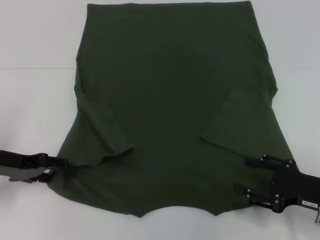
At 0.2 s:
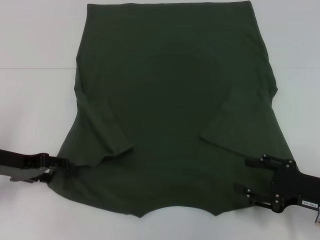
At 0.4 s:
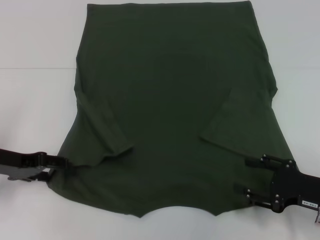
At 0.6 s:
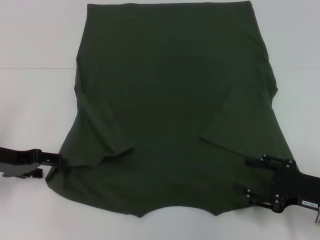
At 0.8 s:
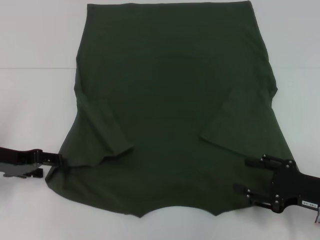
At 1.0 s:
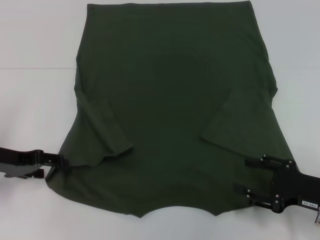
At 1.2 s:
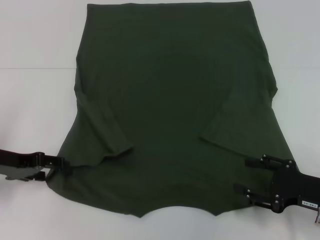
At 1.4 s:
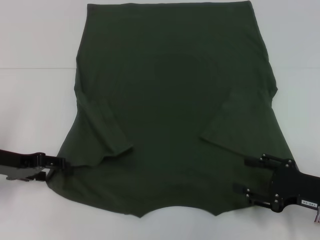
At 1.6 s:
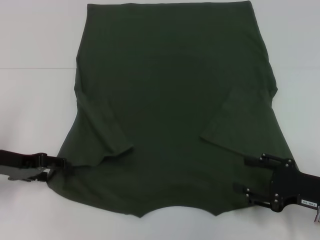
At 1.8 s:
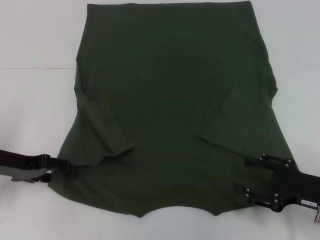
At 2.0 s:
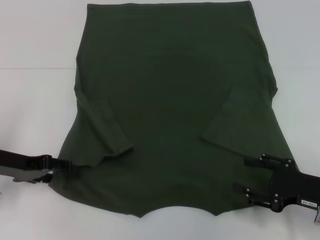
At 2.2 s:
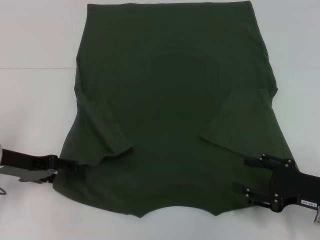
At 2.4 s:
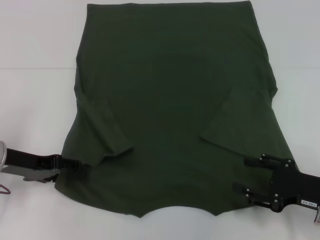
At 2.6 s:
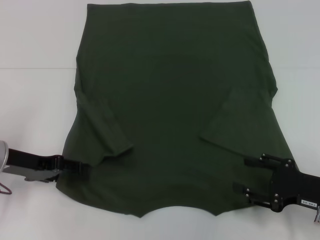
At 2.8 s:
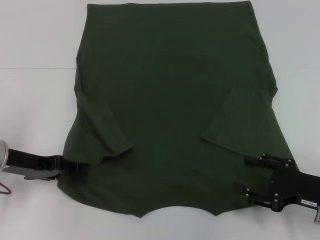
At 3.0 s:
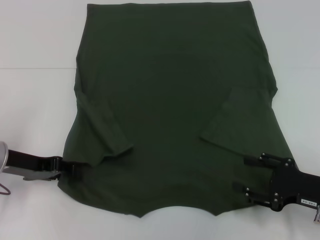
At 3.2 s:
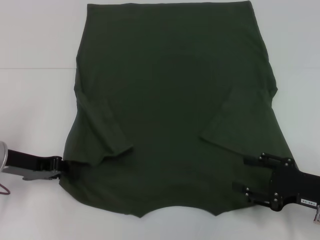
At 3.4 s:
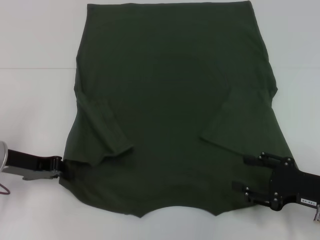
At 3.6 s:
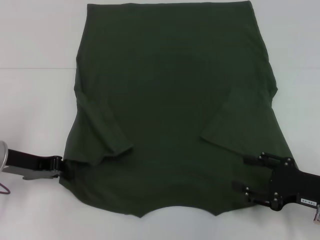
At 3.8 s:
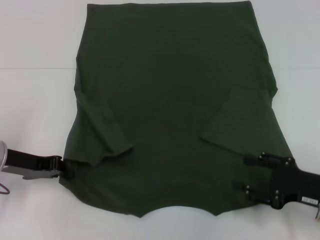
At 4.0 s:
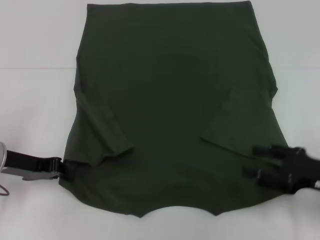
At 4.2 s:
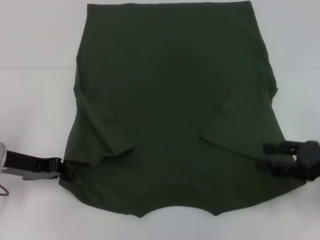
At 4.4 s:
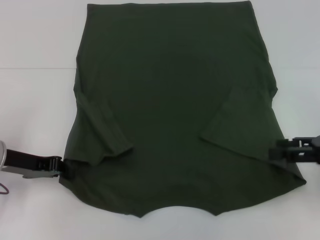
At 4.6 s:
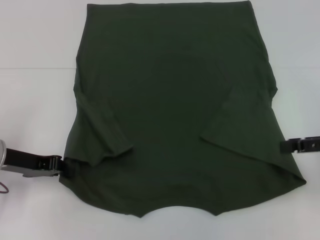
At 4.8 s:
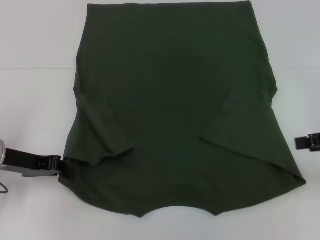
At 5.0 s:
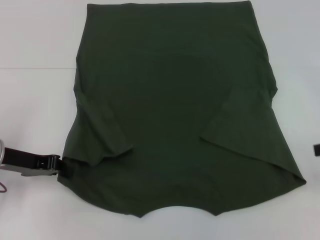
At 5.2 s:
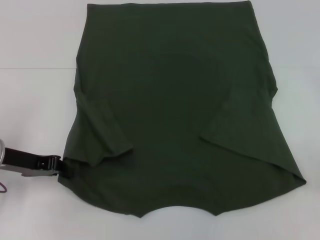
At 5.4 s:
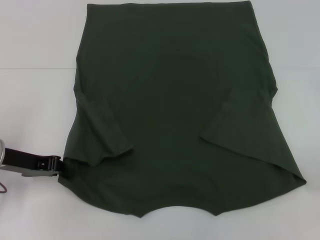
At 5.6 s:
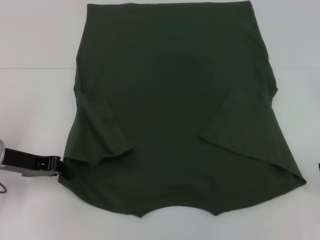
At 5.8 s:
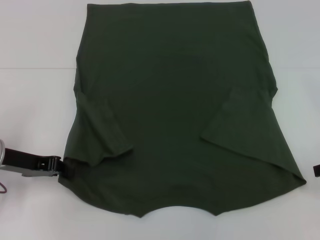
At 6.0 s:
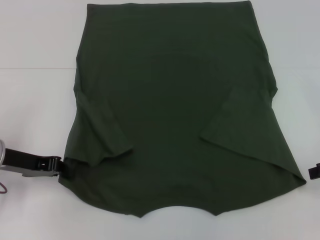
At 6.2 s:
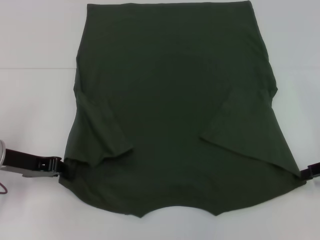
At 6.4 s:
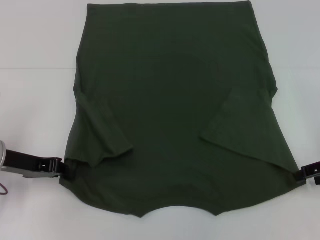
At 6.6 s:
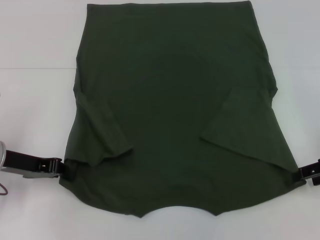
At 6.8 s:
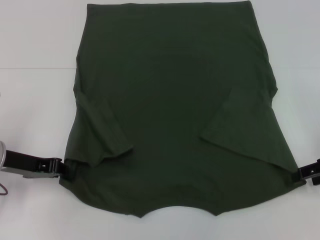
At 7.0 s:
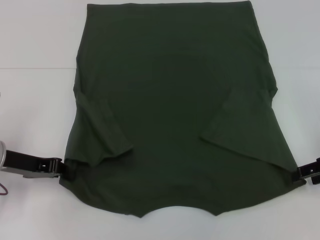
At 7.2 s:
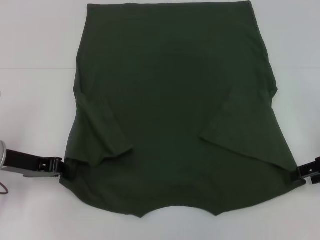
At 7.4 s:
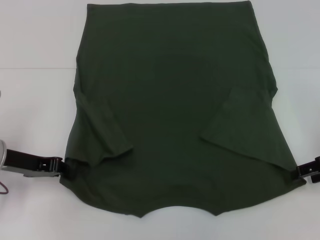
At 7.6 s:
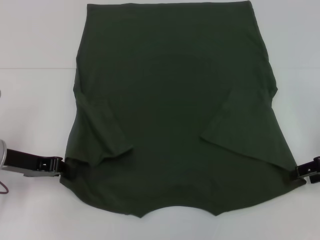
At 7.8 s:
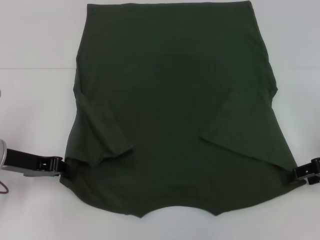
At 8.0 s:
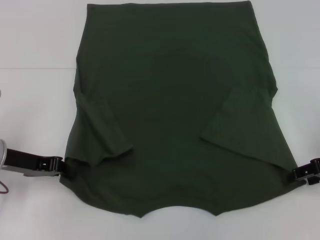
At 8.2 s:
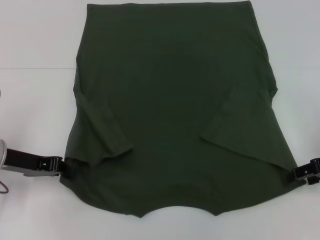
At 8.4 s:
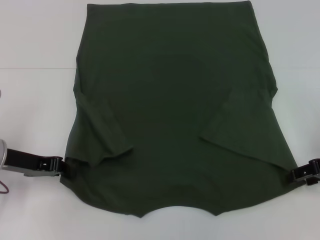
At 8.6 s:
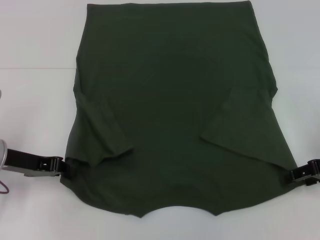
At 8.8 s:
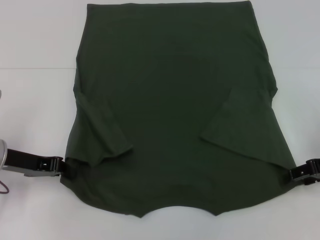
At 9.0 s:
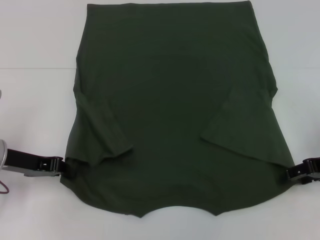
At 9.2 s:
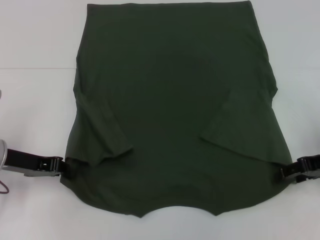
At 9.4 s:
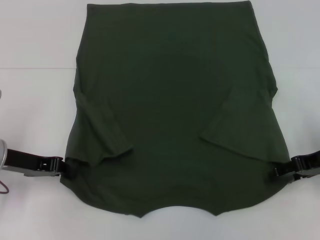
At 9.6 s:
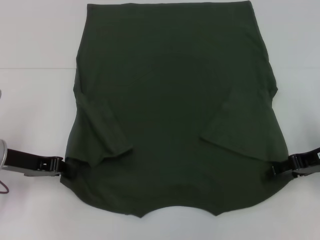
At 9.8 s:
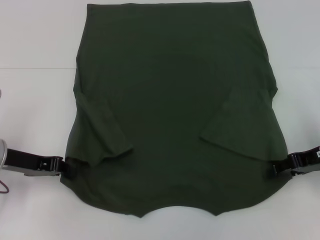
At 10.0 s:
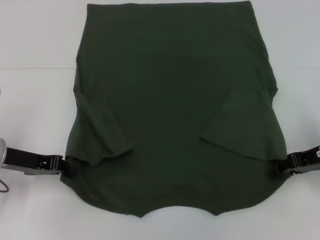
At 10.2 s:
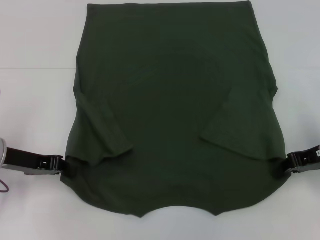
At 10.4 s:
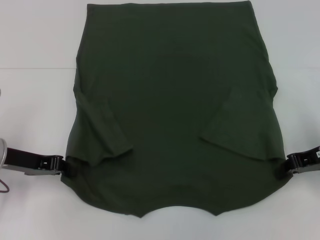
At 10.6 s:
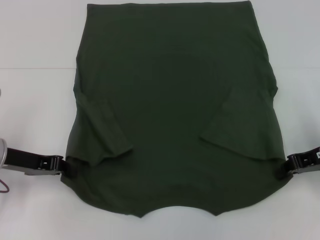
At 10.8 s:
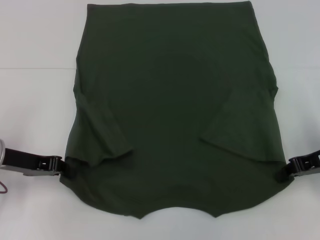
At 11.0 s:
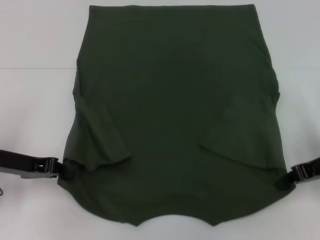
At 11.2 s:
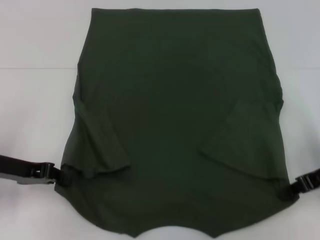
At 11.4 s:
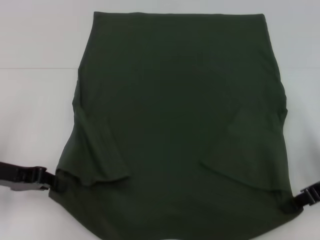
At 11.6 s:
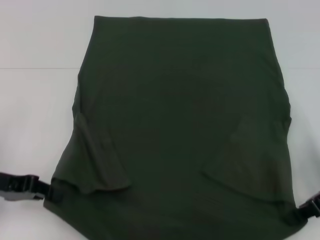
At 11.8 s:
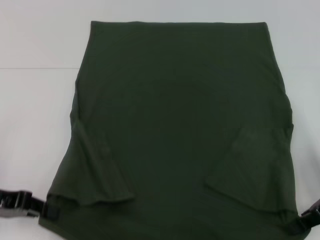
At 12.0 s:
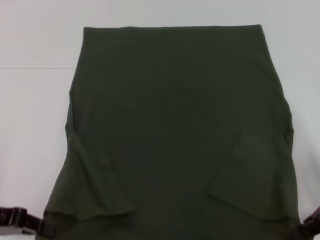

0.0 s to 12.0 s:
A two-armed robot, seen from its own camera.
Step, 0.0 to 3.4 s: Grab the bottom left corner with your left hand.
Step, 3.6 to 10.4 s: Grab the bottom right corner with your right hand.
0.0 to 1.6 s: Both grippers stay put.
1.6 to 3.0 s: The grippers stay close to where they were, moving slightly.
3.0 to 4.4 s: The right gripper is displaced upward by roughly 10 cm. The left gripper closes up.
6.0 to 7.6 s: The grippers make only small movements.
9.0 to 10.4 s: The right gripper closes.
10.4 to 12.0 s: The left gripper moves backward, roughly 10 cm.

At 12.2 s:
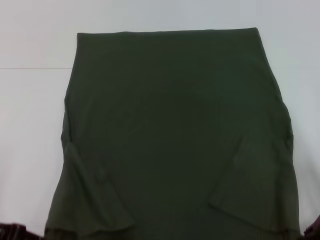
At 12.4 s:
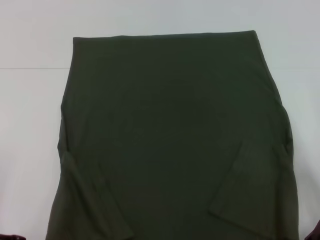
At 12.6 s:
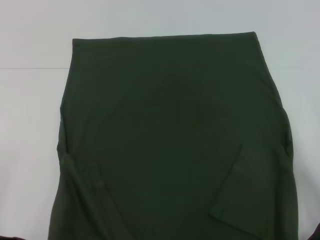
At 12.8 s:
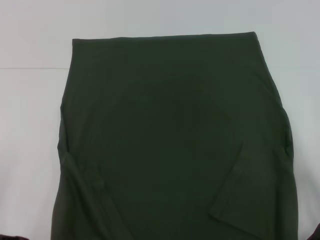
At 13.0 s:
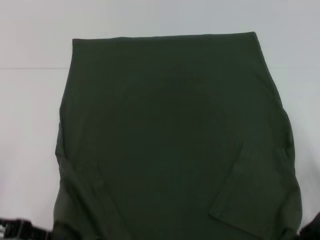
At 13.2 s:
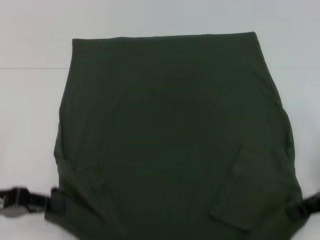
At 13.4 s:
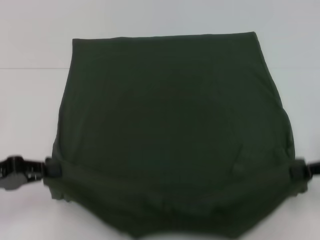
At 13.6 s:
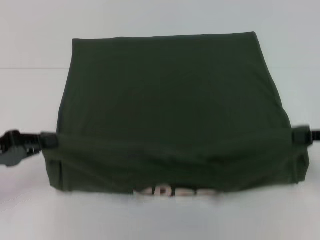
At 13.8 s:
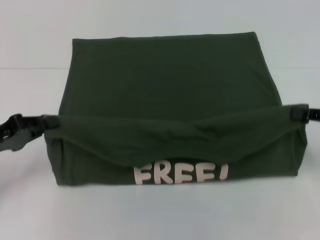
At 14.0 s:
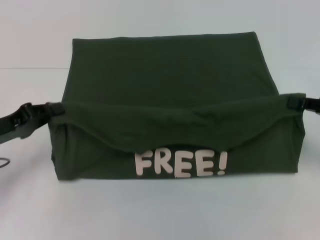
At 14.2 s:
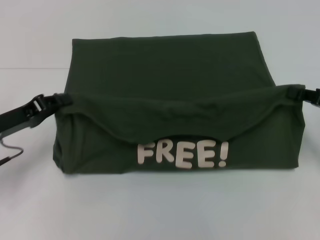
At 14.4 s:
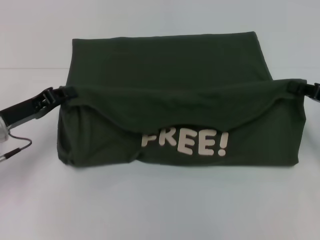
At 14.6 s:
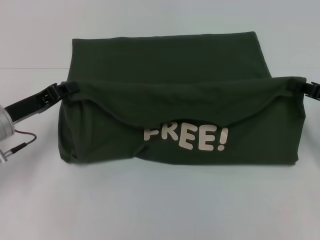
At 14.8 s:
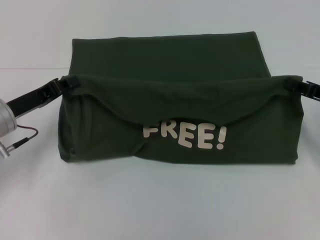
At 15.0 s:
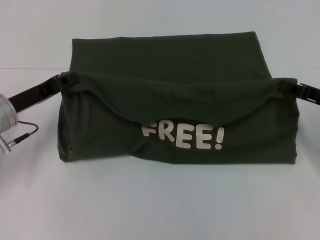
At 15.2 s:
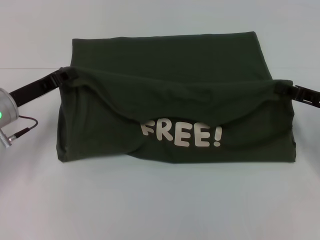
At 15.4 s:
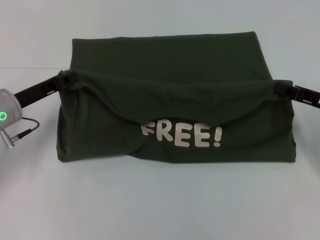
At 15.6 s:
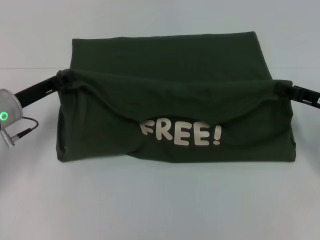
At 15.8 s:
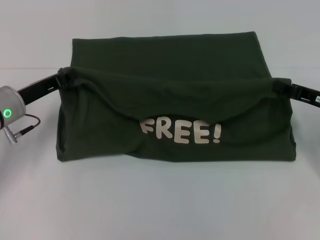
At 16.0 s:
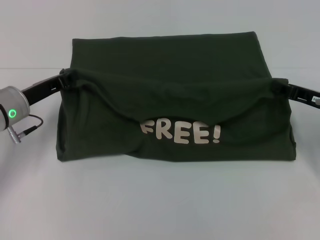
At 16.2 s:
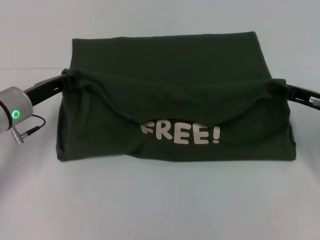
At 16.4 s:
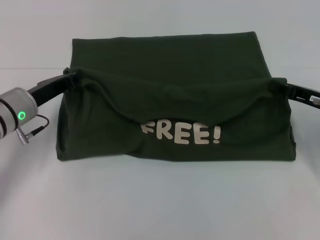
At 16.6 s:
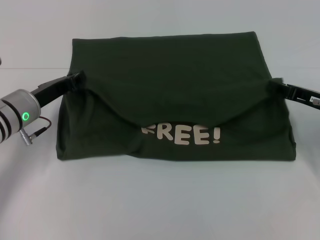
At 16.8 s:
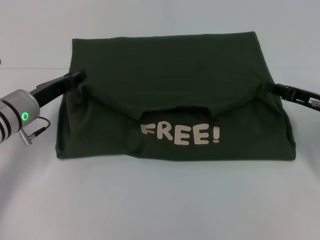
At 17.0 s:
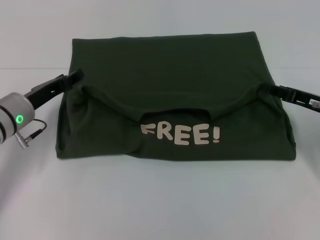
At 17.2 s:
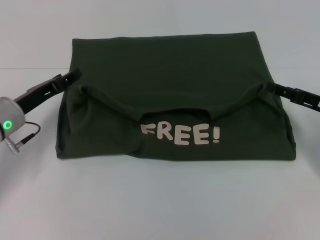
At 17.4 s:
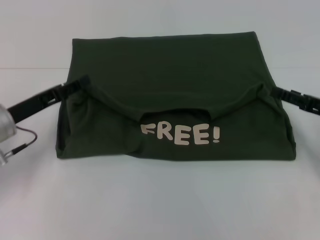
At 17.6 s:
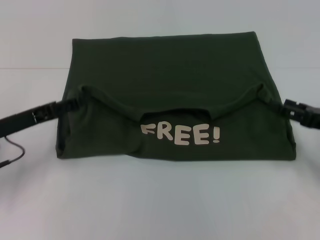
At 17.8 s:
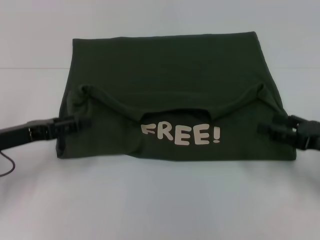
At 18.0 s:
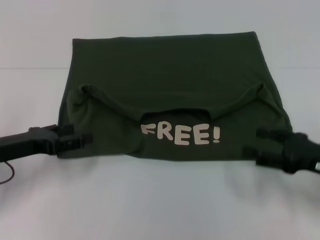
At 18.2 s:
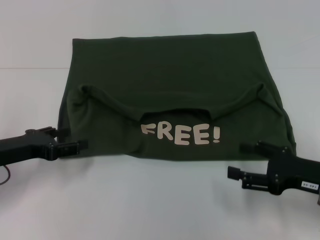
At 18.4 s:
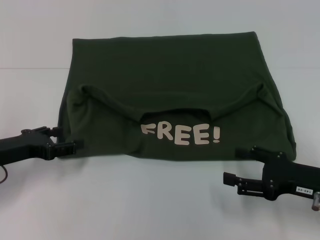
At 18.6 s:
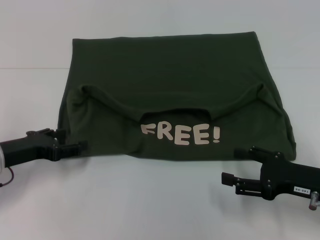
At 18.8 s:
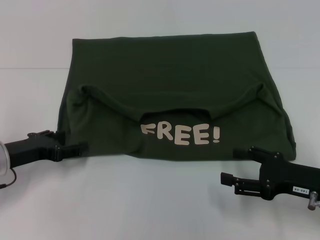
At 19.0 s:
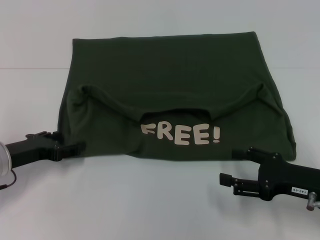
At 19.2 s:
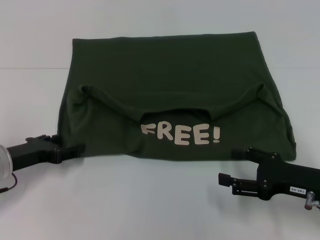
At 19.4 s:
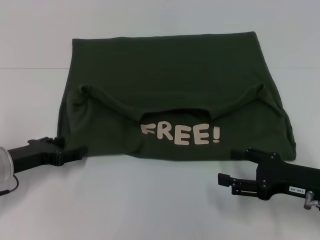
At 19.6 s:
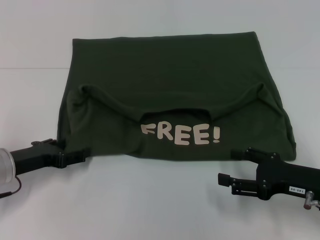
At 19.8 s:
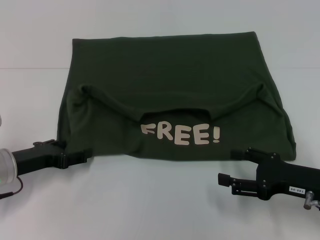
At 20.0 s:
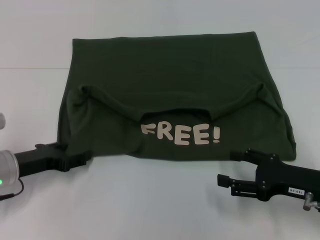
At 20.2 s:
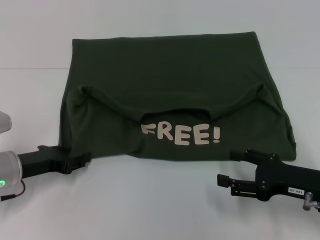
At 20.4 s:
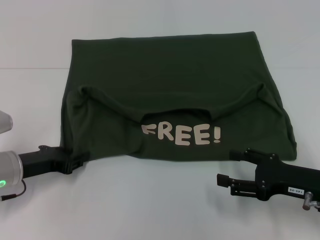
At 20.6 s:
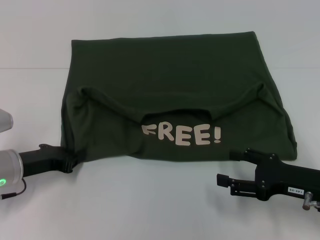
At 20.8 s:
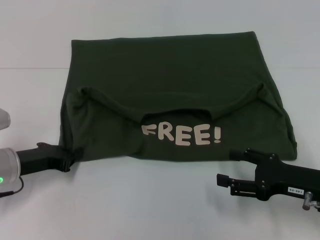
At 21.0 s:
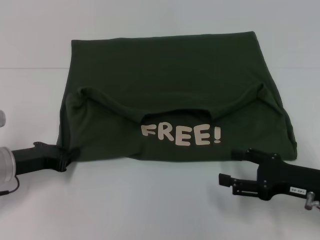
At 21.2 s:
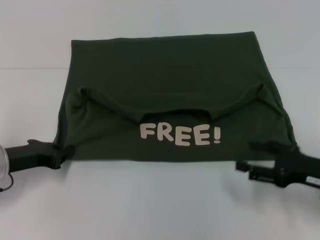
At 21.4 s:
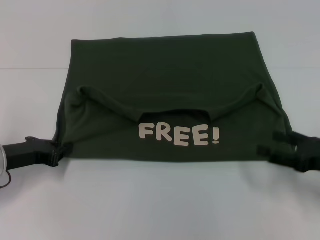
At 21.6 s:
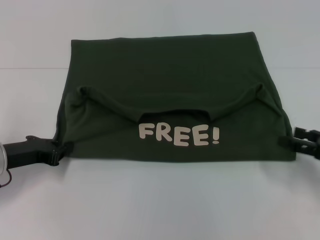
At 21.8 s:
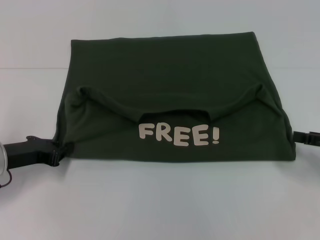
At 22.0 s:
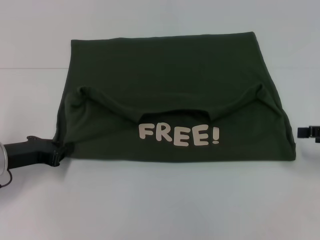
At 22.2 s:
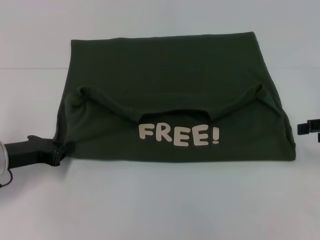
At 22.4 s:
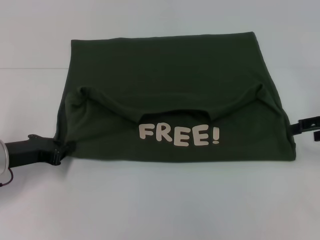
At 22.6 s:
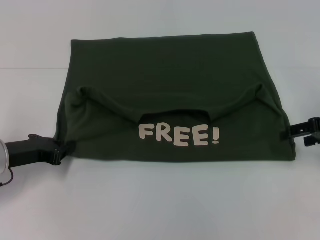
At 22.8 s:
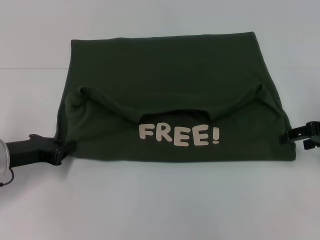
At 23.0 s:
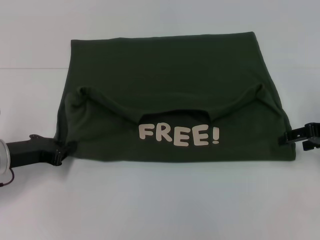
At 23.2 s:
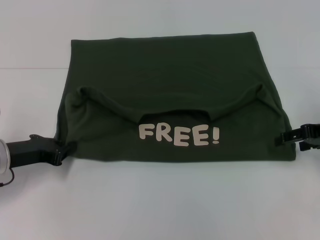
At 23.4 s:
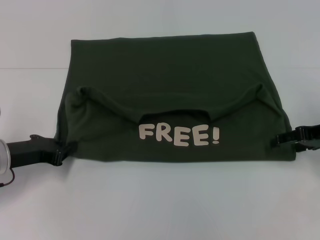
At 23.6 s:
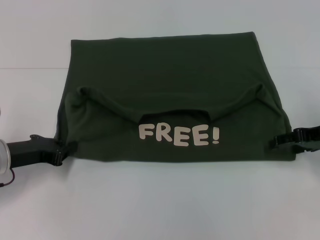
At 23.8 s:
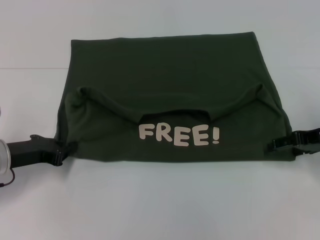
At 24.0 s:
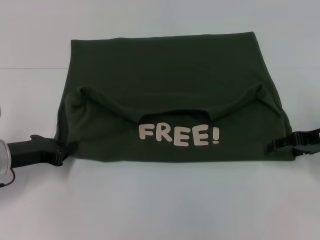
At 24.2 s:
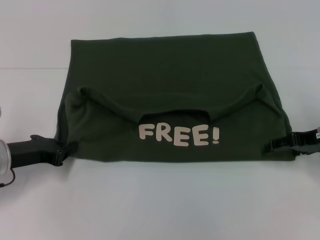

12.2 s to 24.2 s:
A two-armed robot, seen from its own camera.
Step, 12.2 to 17.0 s: Fold the clothes with your left hand.
Step, 12.2 to 17.0 s: Fold the clothes with your right hand.
12.2 to 13.8 s: The right gripper travels to the right by approximately 5 cm.
13.8 to 15.2 s: The left gripper moves forward and to the right, approximately 10 cm. Meanwhile the right gripper moves roughly 5 cm.
15.2 to 16.6 s: The grippers stay close to where they were, moving slightly.
16.6 to 18.2 s: The left gripper is displaced backward and to the left by approximately 10 cm, and opens its fingers, while the right gripper heads backward, covering some 10 cm, and opens.
18.2 to 19.8 s: The grippers make only small movements.
19.8 to 21.2 s: The left gripper closes its fingers.
21.2 to 22.6 s: The right gripper shifts about 15 cm forward and upward.
22.6 to 24.2 s: The grippers stay close to where they were, moving slightly.
